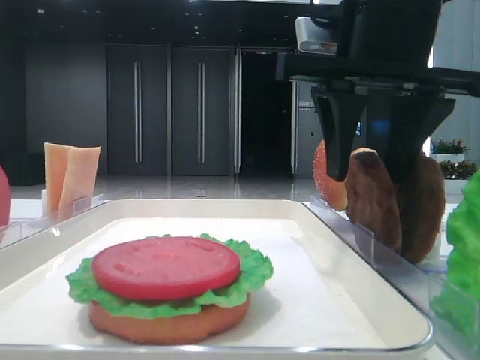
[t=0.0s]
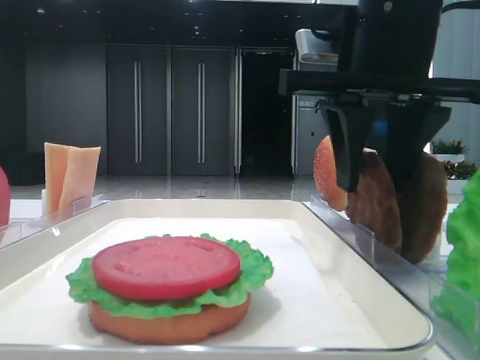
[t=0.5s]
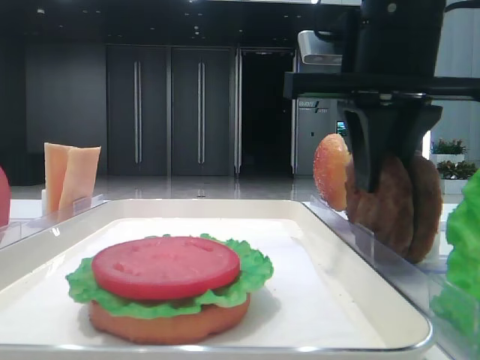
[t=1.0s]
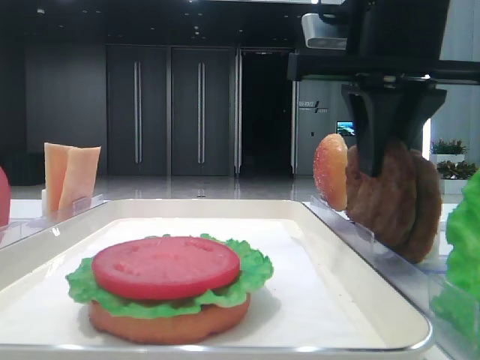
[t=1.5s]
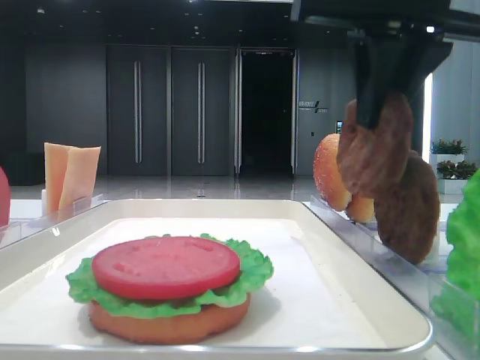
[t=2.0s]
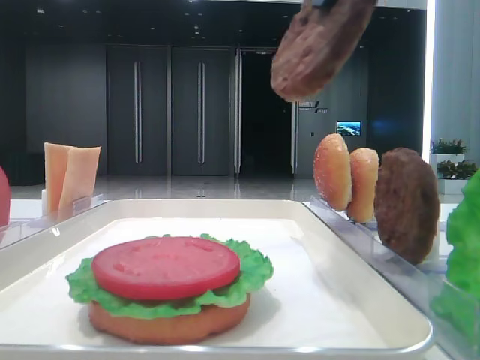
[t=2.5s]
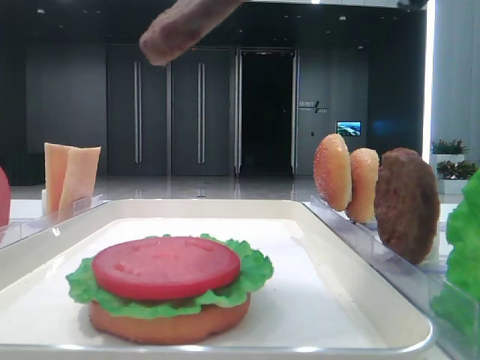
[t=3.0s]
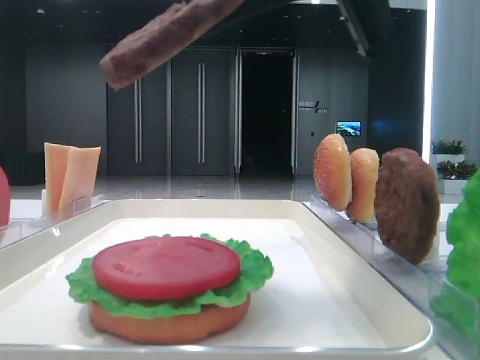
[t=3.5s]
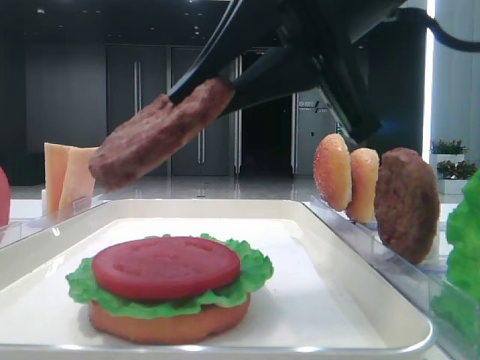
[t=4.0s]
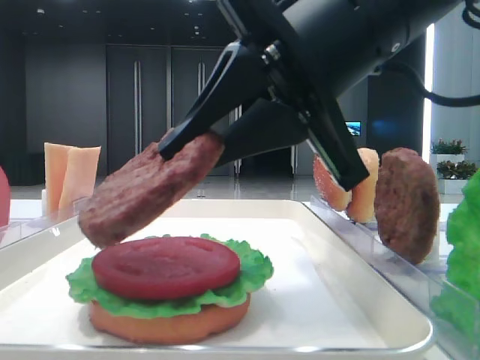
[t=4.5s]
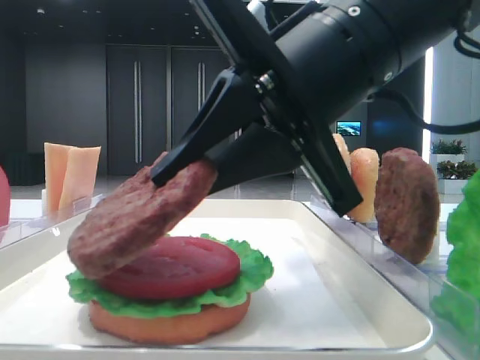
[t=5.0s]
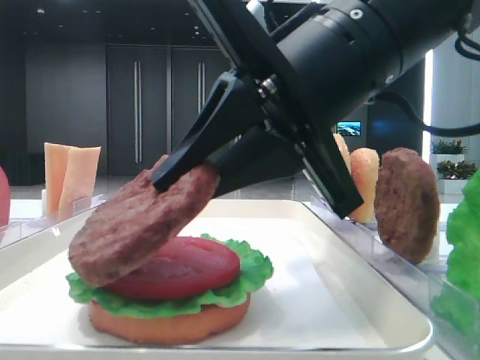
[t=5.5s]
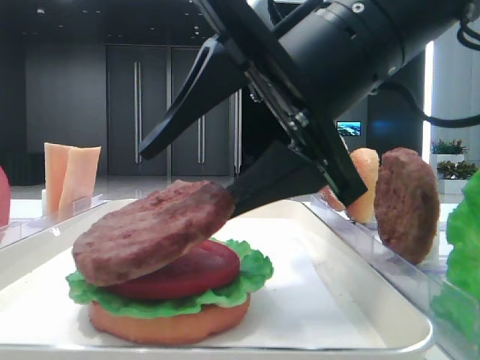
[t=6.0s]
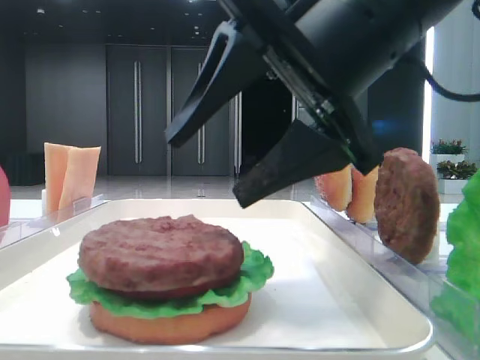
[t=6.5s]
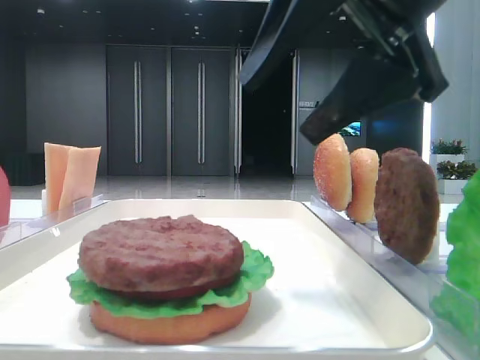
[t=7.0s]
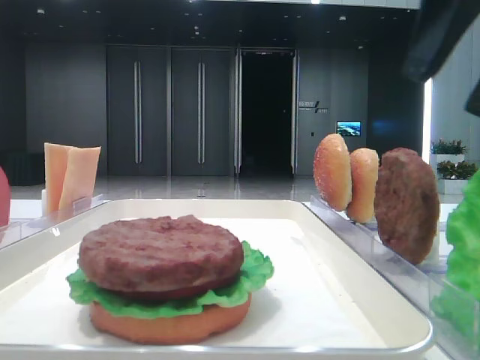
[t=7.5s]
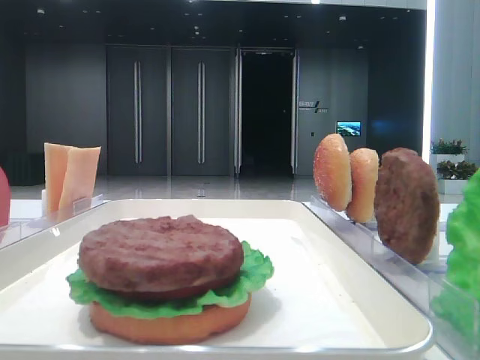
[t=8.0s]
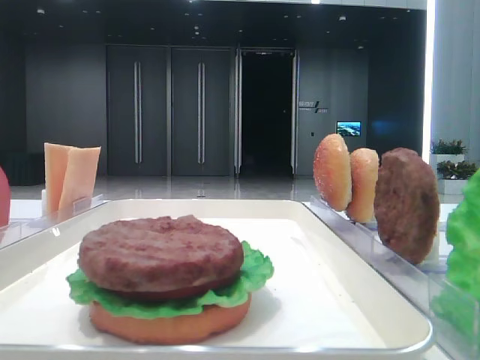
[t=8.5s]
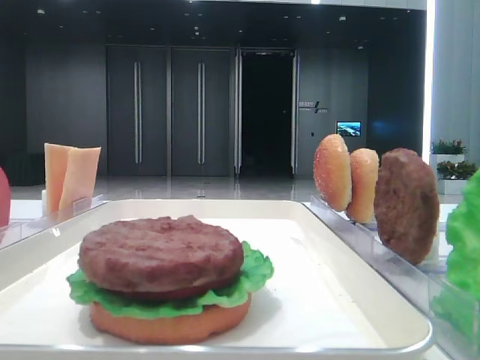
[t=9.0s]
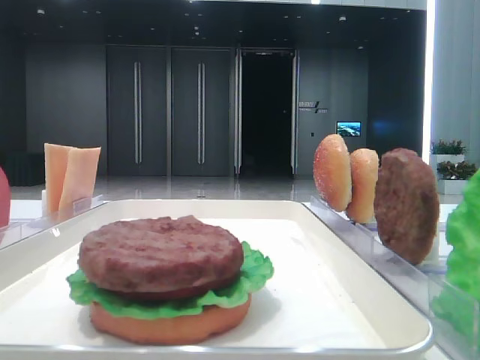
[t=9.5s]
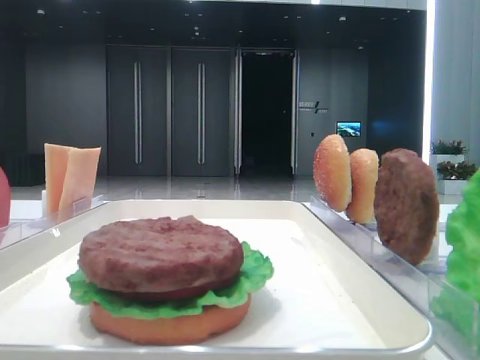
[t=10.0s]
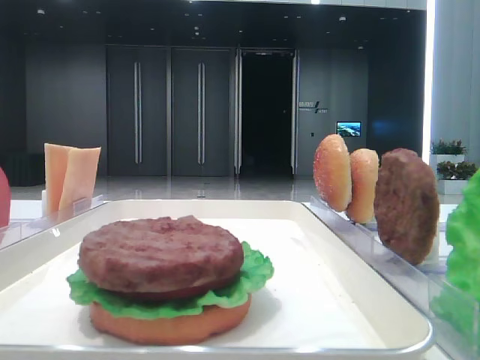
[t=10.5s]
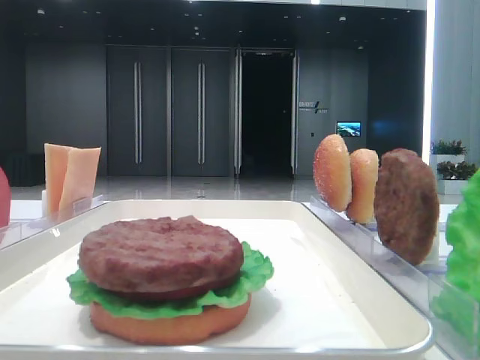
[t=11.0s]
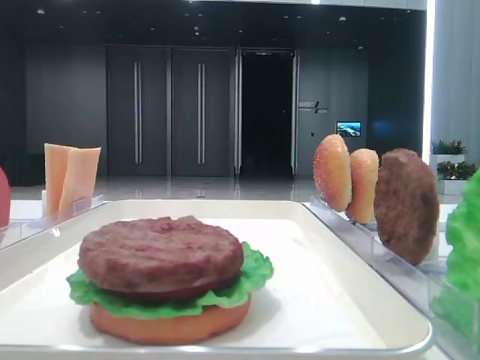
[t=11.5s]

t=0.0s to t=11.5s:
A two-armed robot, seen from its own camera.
Step, t=1.5s to t=6.0s: Place the patty on the tomato slice with the right hand.
t=0.0s to t=2.0s: The right gripper closes.
t=2.0s to t=4.0s: The right gripper moves approximately 10 cm.
t=4.0s to t=6.0s: The right gripper opens its fingers.
t=6.0s to t=7.5s: The right gripper shifts some 15 cm to the right and upward.
t=7.5s to t=9.5s: The right gripper goes about 20 cm backward and to the right.

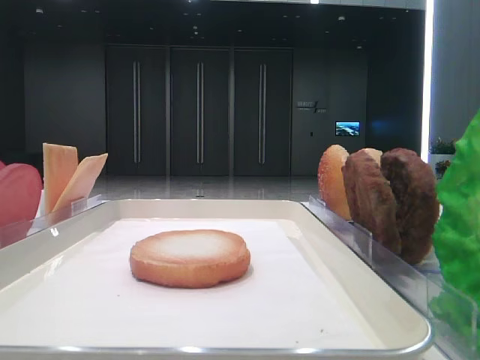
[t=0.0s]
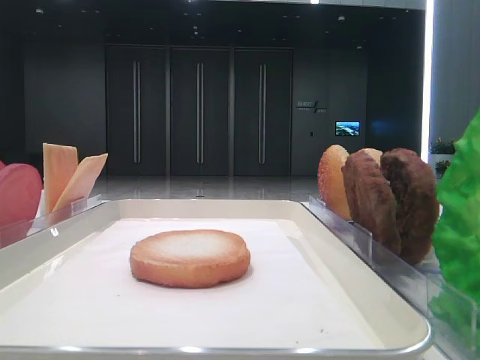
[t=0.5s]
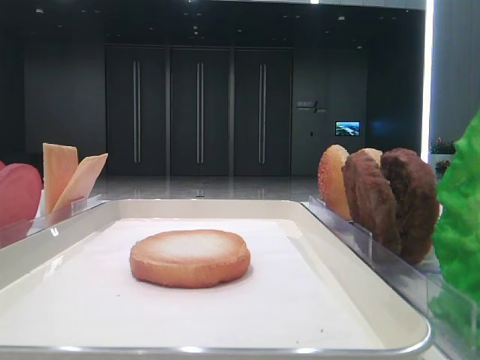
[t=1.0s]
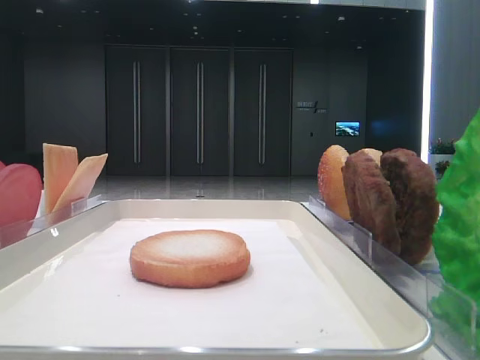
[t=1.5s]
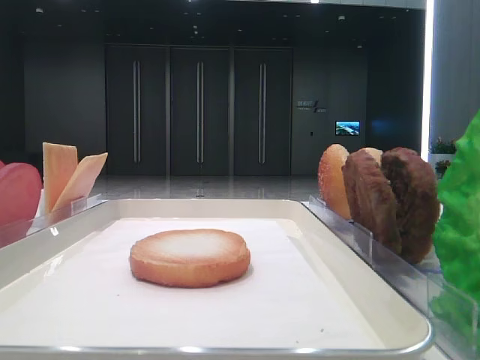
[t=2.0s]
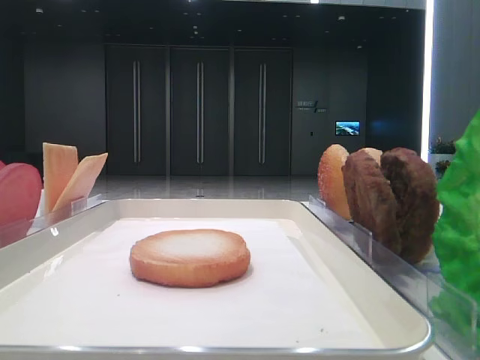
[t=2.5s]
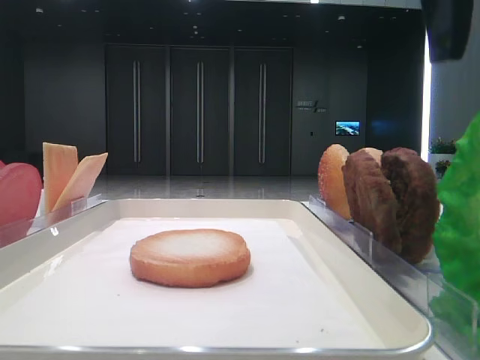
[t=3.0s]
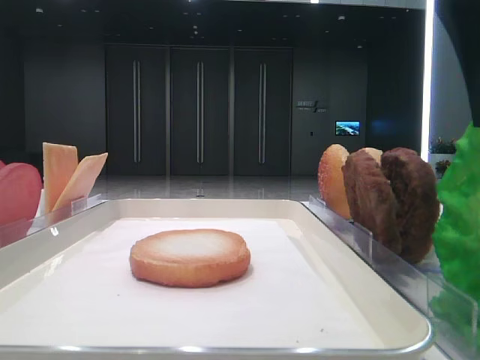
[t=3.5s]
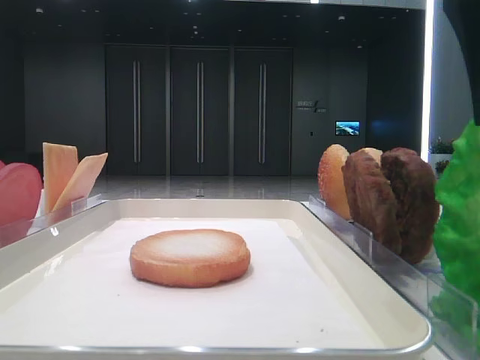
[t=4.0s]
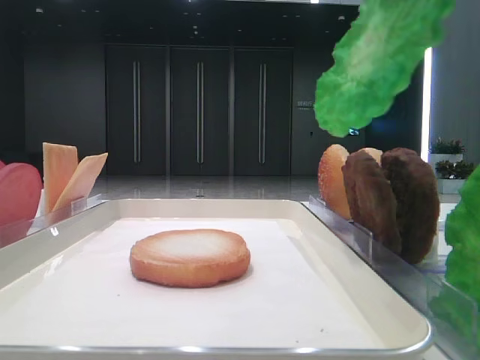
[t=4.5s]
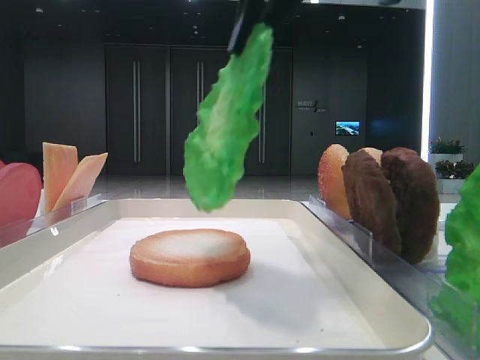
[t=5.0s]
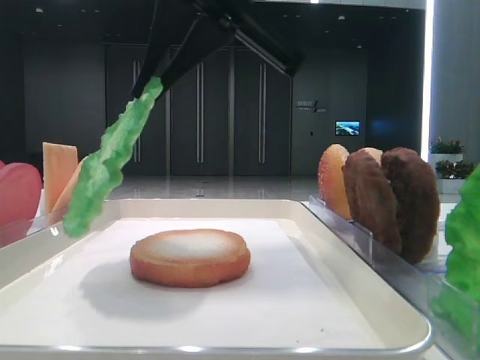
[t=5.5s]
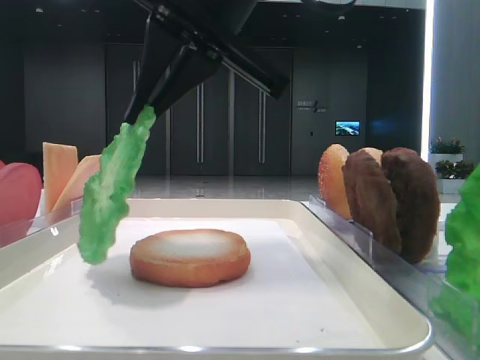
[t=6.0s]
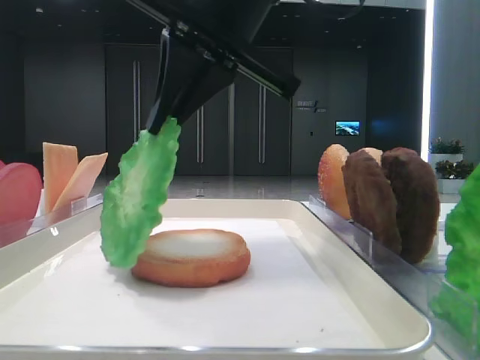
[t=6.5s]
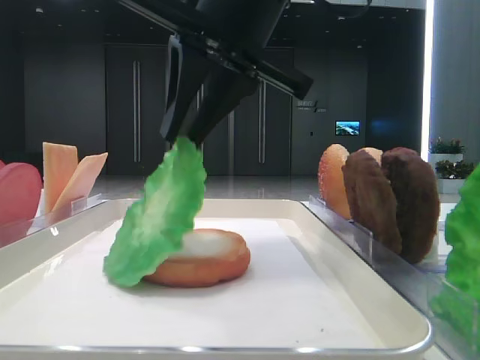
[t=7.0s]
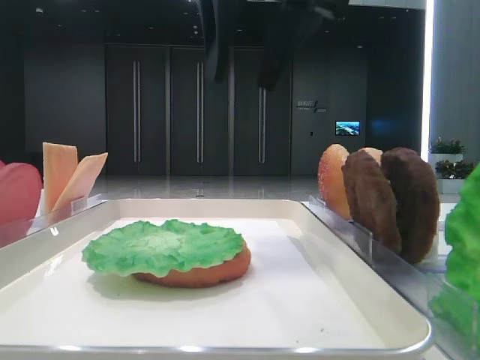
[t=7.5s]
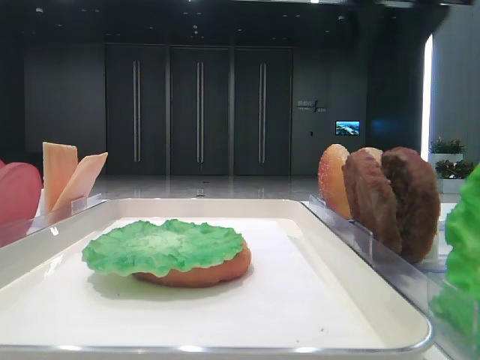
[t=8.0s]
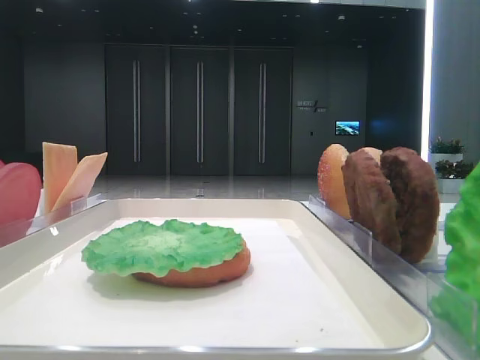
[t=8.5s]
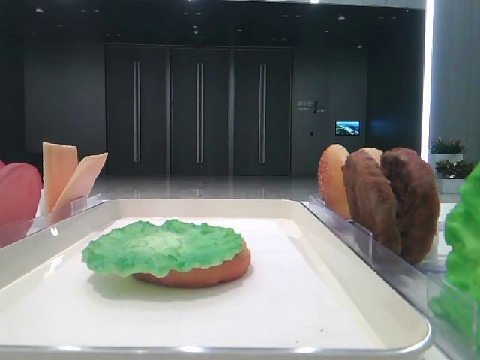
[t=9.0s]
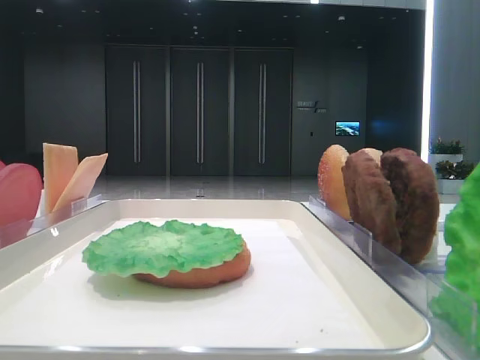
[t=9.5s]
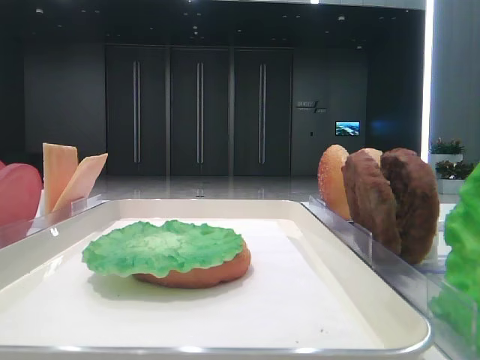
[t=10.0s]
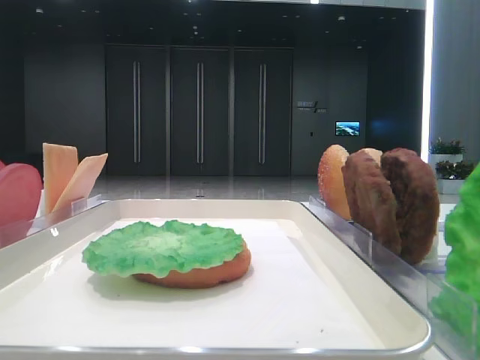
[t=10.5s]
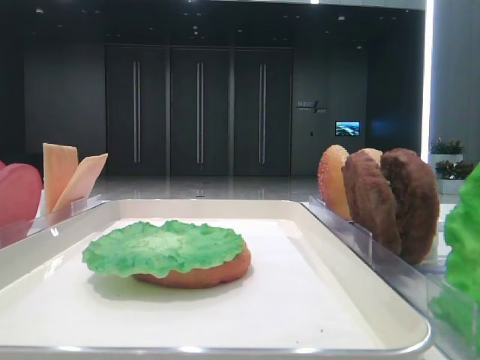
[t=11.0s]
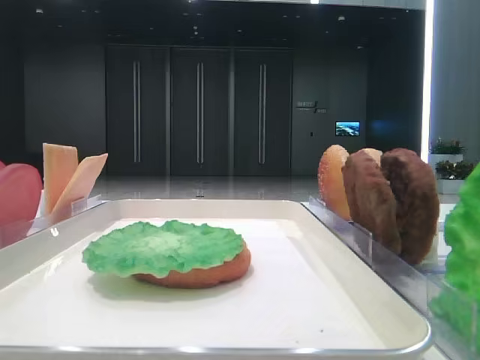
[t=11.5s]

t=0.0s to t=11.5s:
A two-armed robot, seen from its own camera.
Step, t=0.0s to t=3.5s: Grab the lettuce leaf with the right hand.
Step, t=4.0s to t=7.0s: Place the lettuce leaf on the bottom bread with the right hand.
t=2.0s to t=4.0s: The right gripper goes roughly 15 cm to the left, and closes.
t=4.0s to t=6.0s: The right gripper heads to the left and forward, covering roughly 15 cm.
t=6.0s to t=7.5s: The left gripper closes. The right gripper heads upward, covering some 5 cm, and opens.
t=7.5s to t=9.5s: The right gripper moves to the right and backward, about 35 cm.

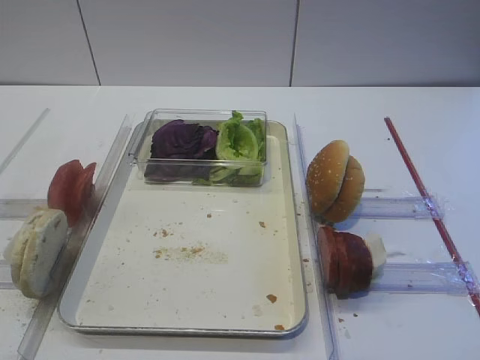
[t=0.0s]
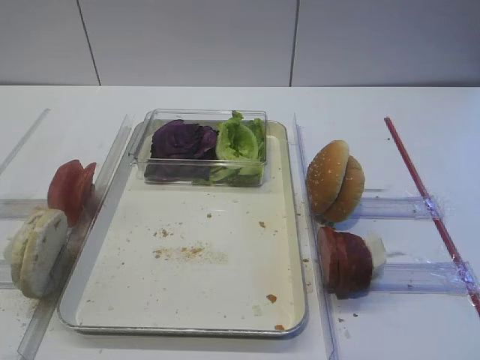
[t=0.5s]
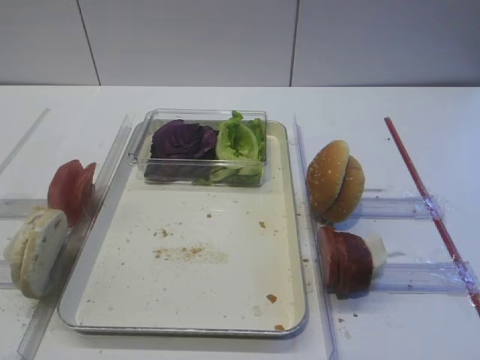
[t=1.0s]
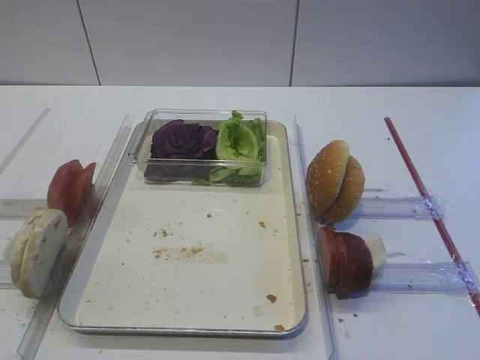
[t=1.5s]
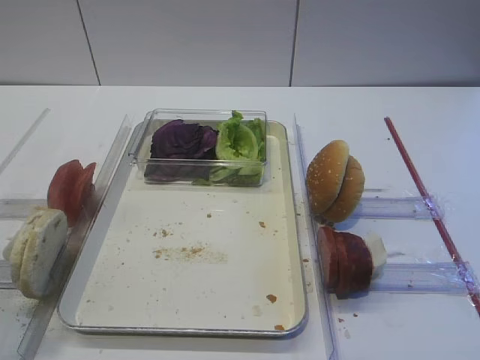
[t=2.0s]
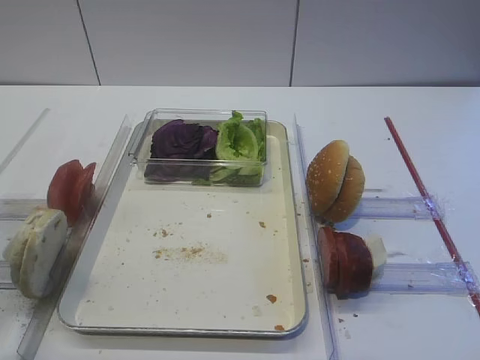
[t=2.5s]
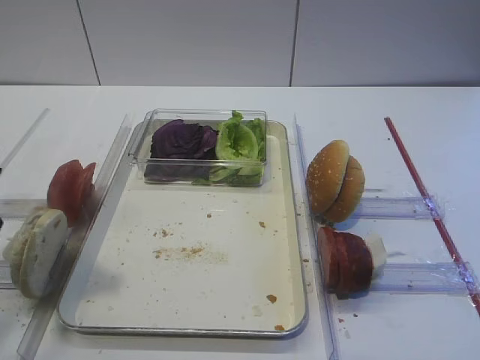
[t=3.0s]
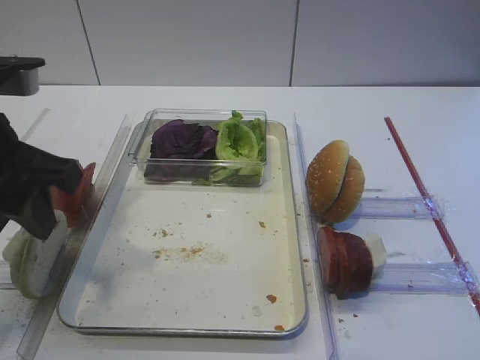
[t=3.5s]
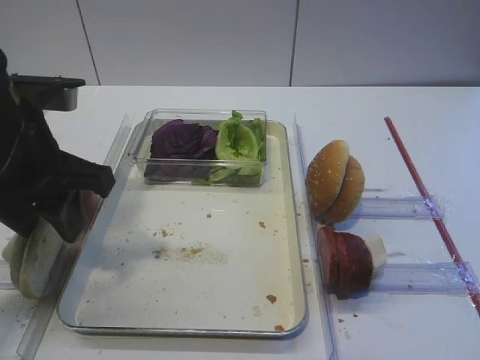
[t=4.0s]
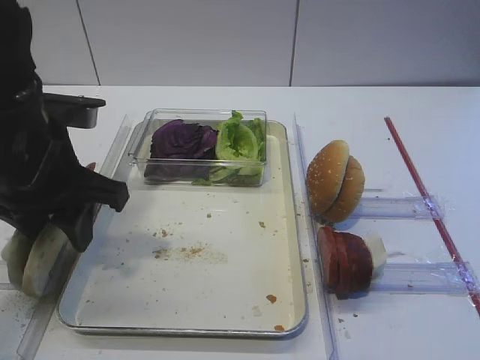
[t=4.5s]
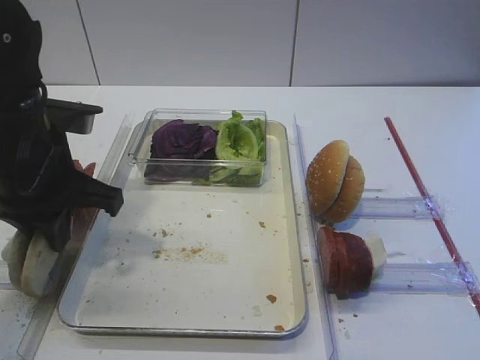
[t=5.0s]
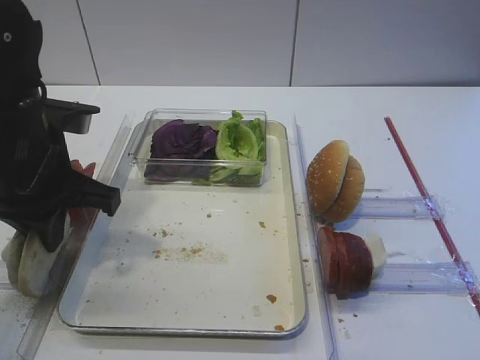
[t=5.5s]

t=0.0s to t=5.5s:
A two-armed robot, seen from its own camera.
t=2.0s to t=3.5s: The left gripper goes approximately 15 cm forward and to the right.
t=3.5s to t=5.5s: The left gripper is displaced downward by about 5 cm, and closes.
